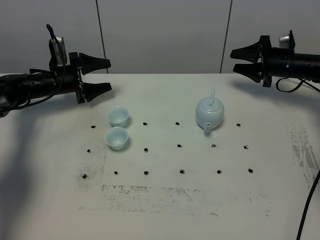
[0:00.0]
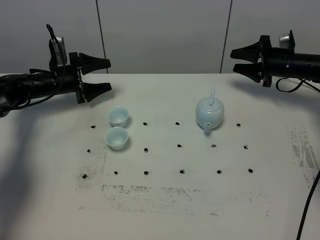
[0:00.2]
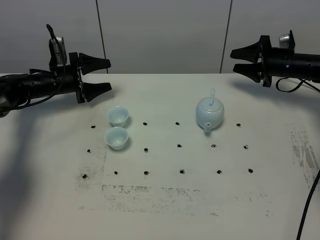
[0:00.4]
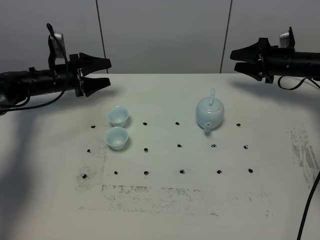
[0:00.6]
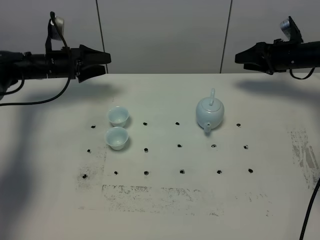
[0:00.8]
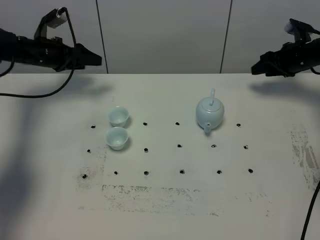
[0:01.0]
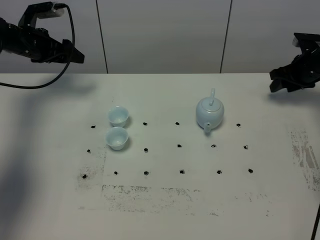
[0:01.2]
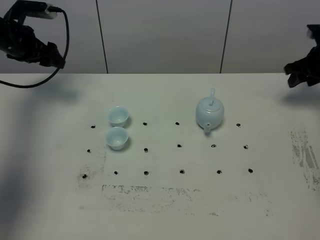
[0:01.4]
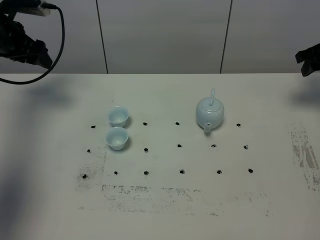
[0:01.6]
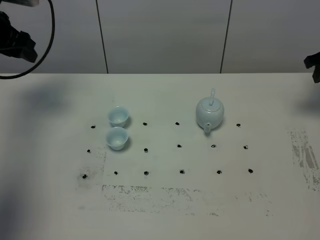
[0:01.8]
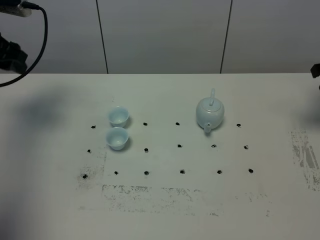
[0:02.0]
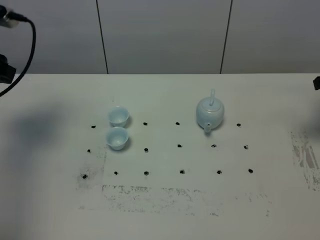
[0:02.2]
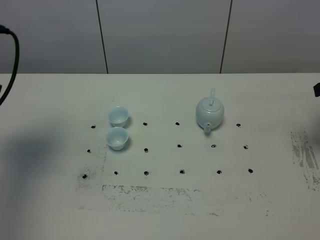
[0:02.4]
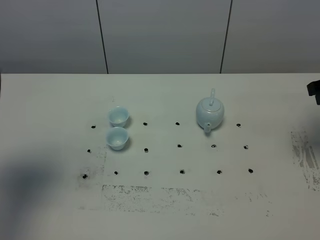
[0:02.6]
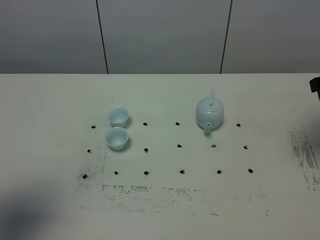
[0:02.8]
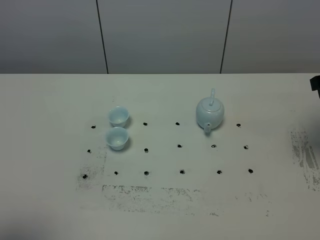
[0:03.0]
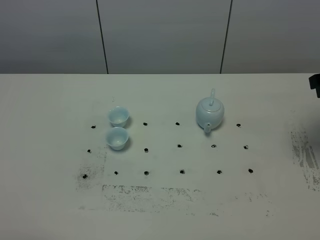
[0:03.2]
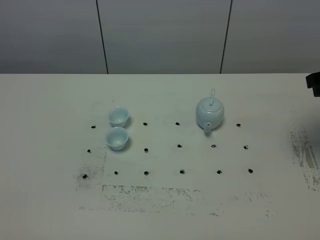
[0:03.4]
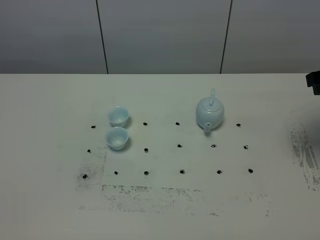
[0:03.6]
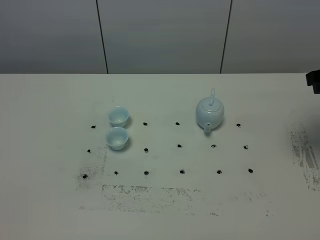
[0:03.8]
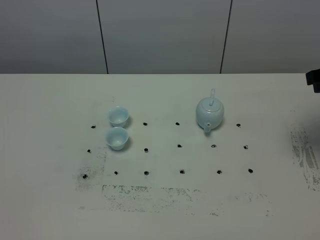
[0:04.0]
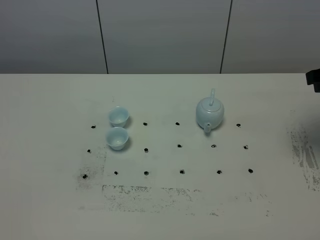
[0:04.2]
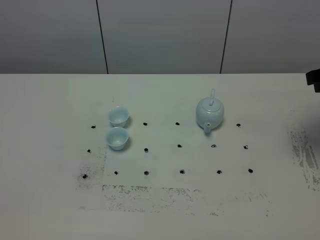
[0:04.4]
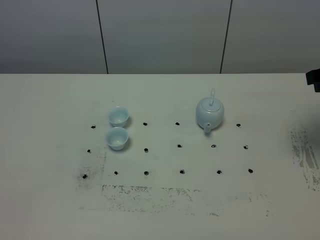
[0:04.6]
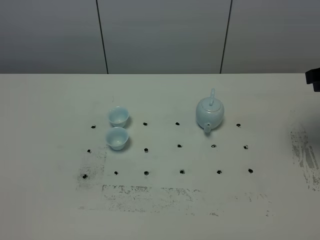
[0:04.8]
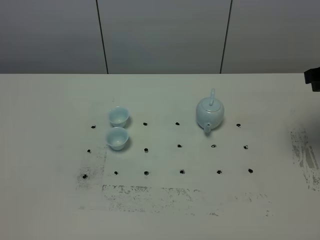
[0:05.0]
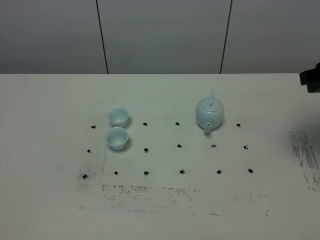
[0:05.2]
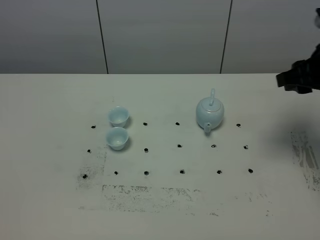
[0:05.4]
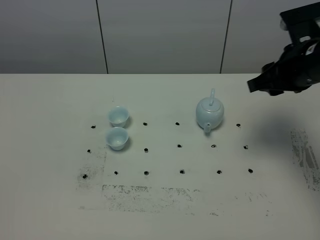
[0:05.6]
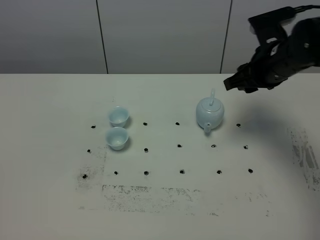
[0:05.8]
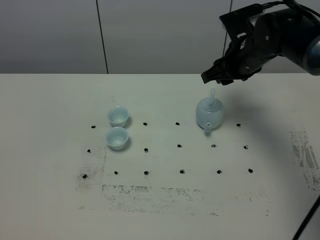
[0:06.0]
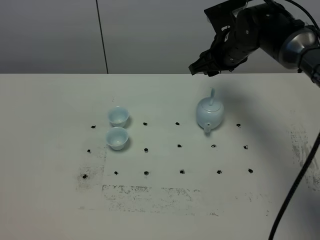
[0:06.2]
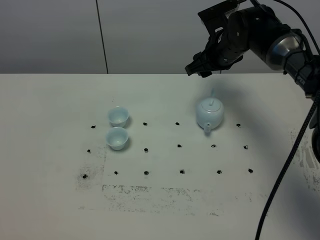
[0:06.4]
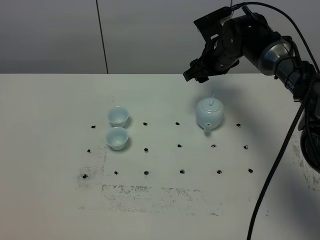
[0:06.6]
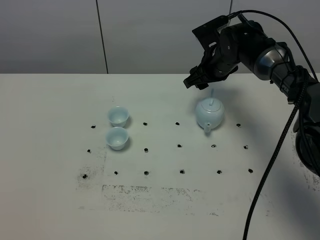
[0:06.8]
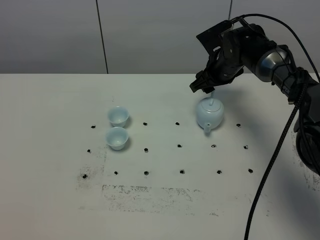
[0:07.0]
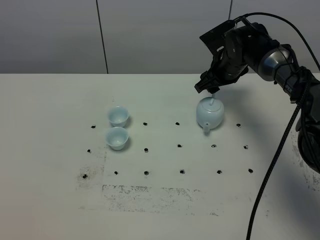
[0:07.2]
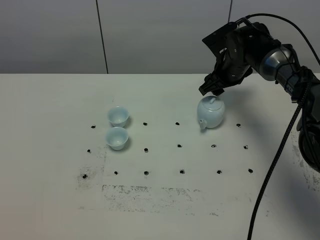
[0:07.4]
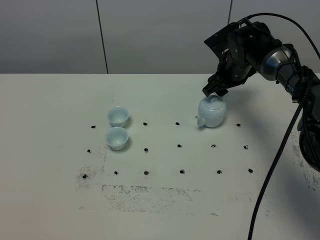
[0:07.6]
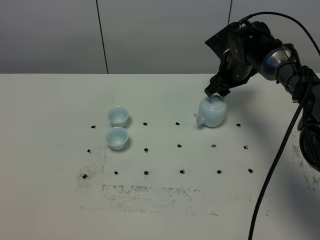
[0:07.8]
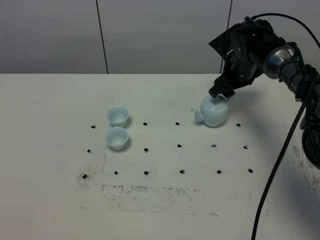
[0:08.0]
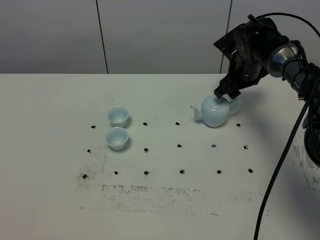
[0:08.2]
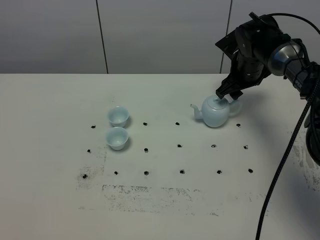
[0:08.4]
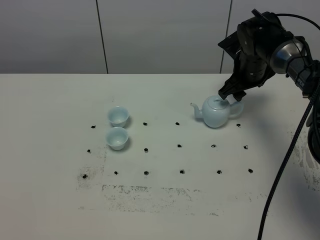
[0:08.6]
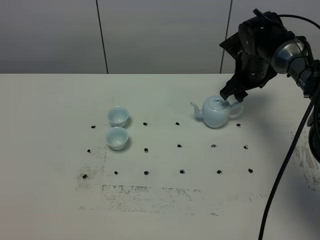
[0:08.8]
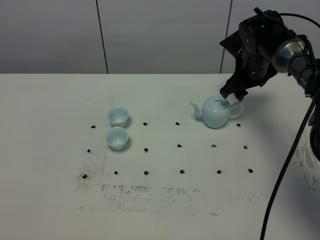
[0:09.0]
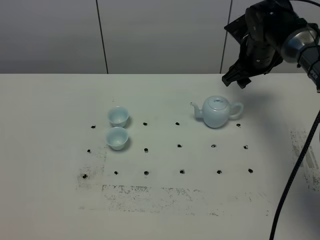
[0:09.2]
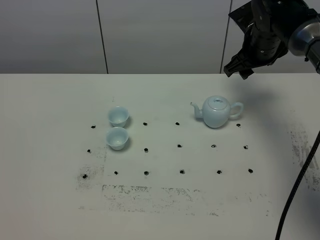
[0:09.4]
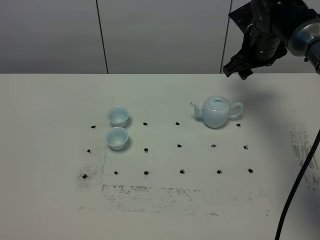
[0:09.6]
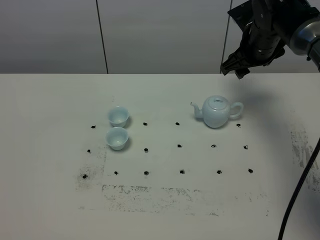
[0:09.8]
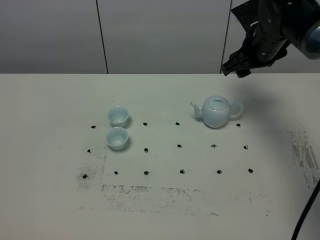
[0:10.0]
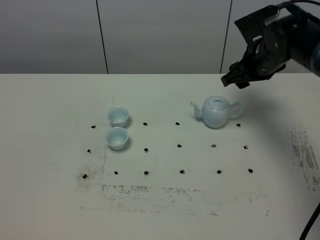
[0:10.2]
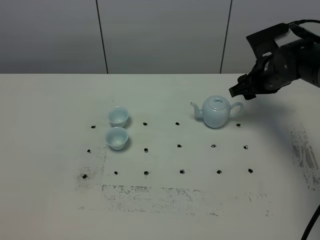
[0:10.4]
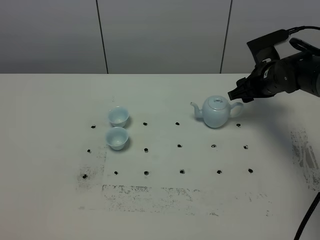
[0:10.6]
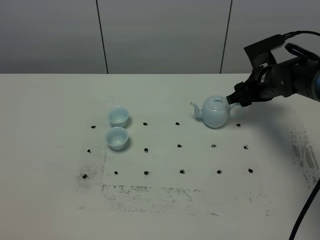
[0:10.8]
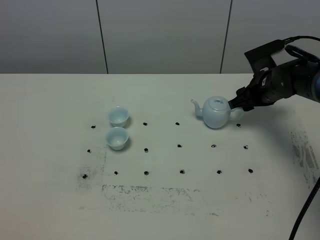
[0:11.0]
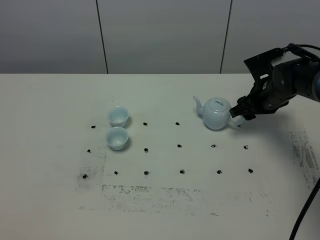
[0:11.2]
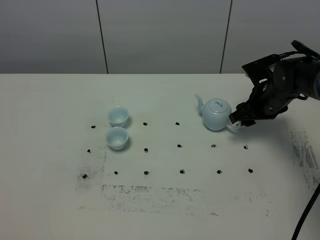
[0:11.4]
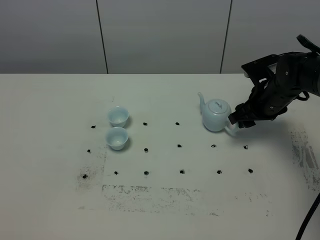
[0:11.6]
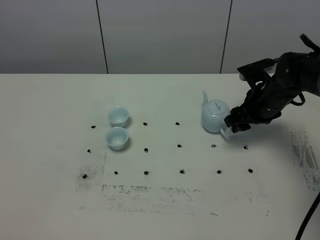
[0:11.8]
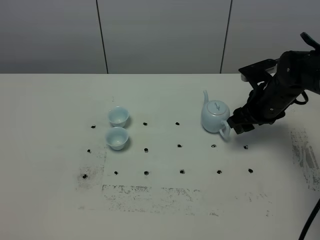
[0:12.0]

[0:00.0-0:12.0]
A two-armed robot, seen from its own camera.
Task of the whole recording: grasp the blue porcelain teapot and pour the tea into the two blue porcelain teacups one by one, put the blue porcelain teapot back in its original place.
0:00.0 to 0:01.6: The left gripper is displaced upward by roughly 20 cm, and closes. Meanwhile the right gripper travels upward, to the right and backward by approximately 15 cm.
0:01.6 to 0:03.0: The left gripper heads backward, covering some 40 cm, and closes its fingers. The right gripper heads backward and upward, covering about 20 cm.
0:03.0 to 0:04.4: The left gripper goes roughly 10 cm backward and downward.
0:04.4 to 0:06.0: The right gripper heads to the left and forward, covering about 20 cm.
0:06.0 to 0:07.6: The right gripper heads downward and forward, covering roughly 10 cm.
0:07.6 to 0:09.0: There are only small adjustments of the grippers.
0:09.0 to 0:10.4: The right gripper moves some 5 cm.

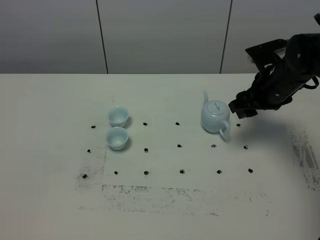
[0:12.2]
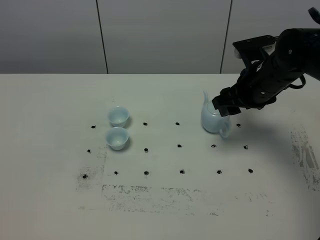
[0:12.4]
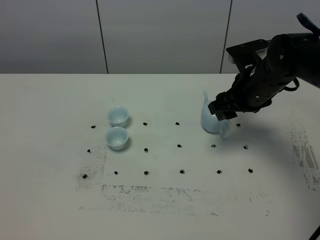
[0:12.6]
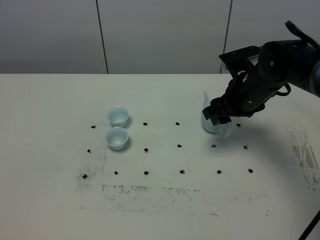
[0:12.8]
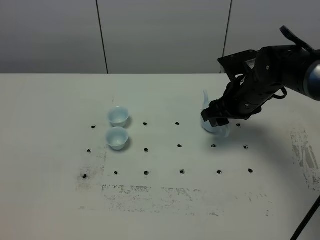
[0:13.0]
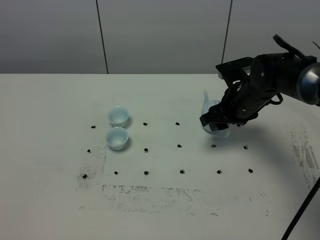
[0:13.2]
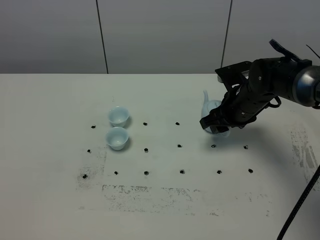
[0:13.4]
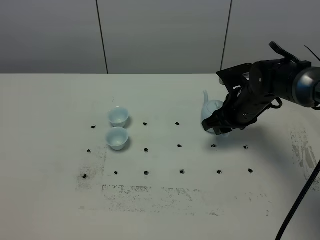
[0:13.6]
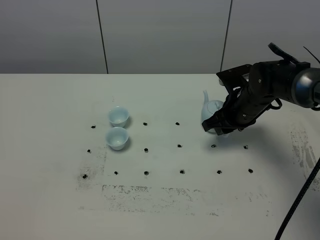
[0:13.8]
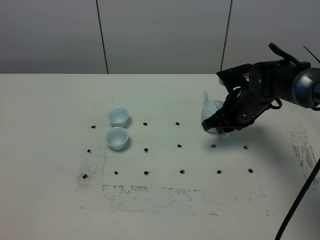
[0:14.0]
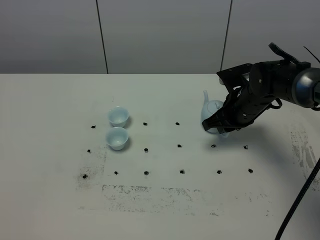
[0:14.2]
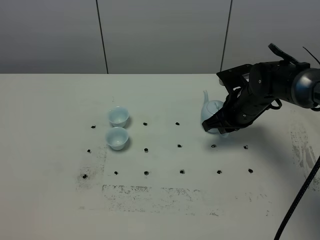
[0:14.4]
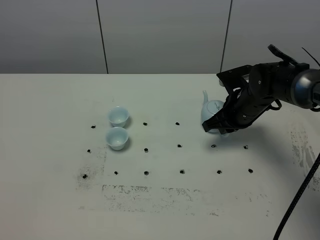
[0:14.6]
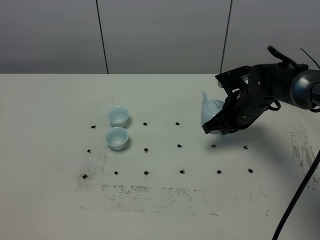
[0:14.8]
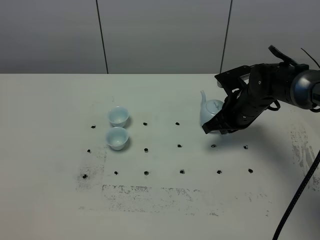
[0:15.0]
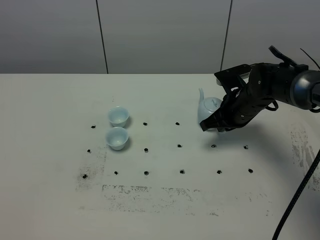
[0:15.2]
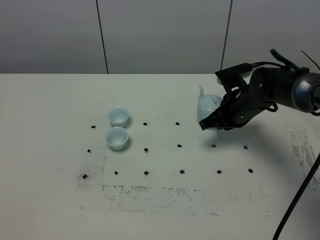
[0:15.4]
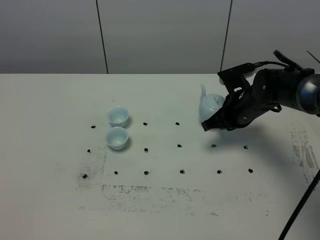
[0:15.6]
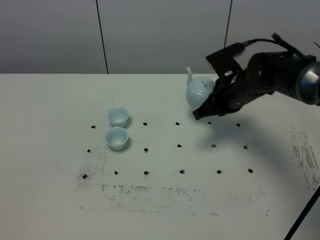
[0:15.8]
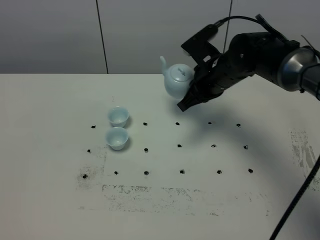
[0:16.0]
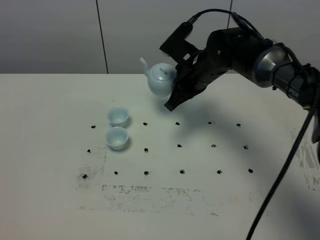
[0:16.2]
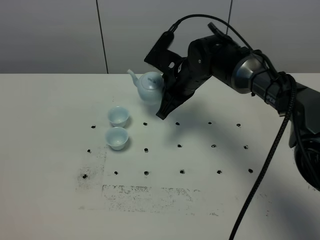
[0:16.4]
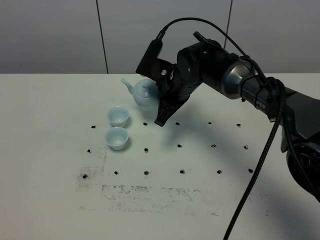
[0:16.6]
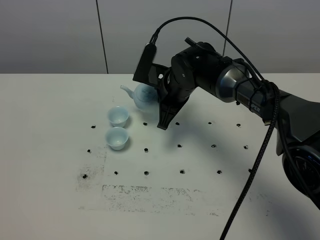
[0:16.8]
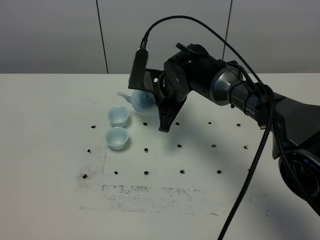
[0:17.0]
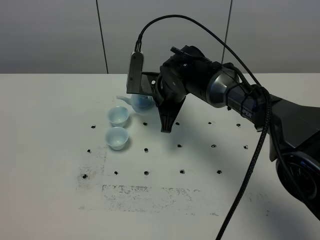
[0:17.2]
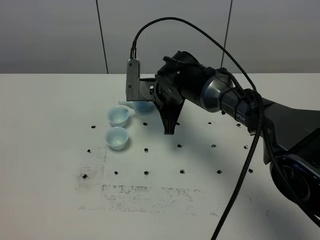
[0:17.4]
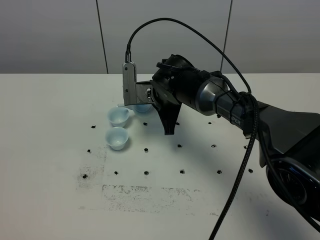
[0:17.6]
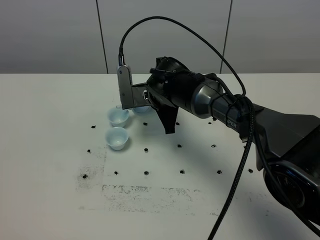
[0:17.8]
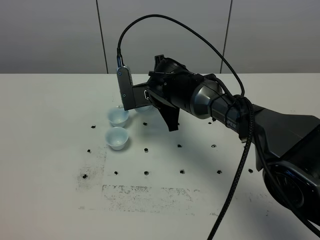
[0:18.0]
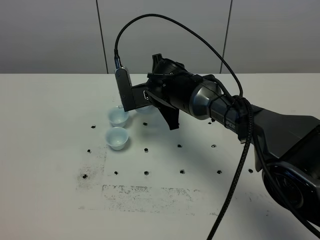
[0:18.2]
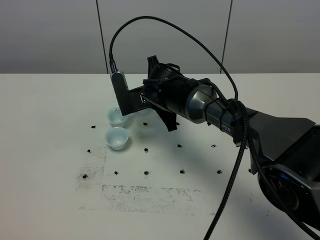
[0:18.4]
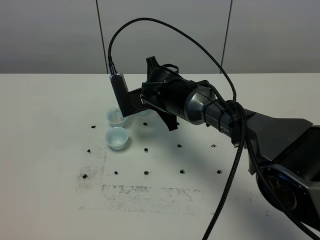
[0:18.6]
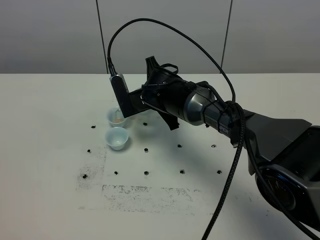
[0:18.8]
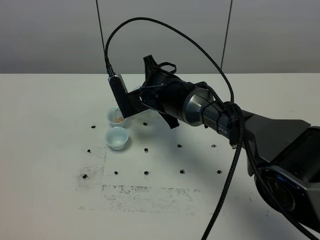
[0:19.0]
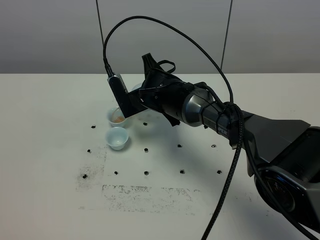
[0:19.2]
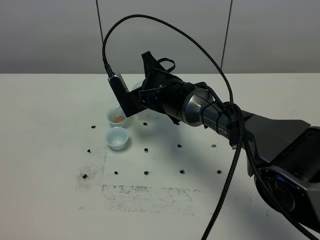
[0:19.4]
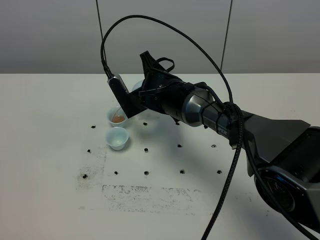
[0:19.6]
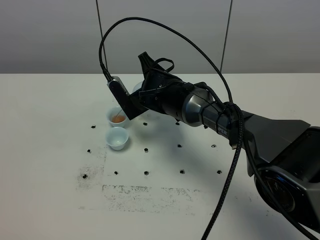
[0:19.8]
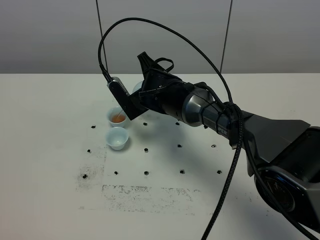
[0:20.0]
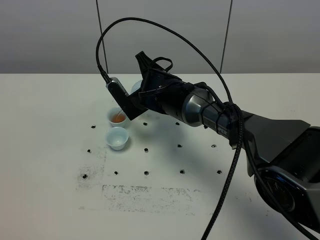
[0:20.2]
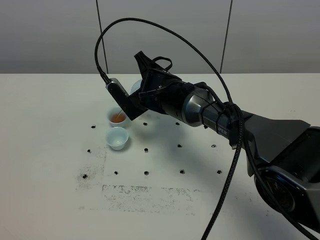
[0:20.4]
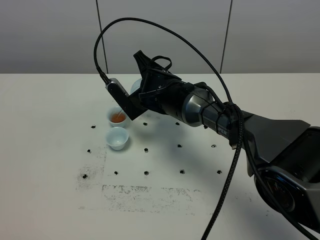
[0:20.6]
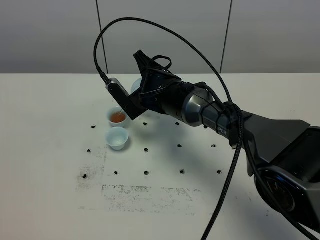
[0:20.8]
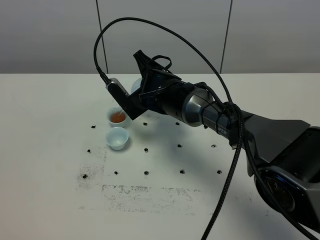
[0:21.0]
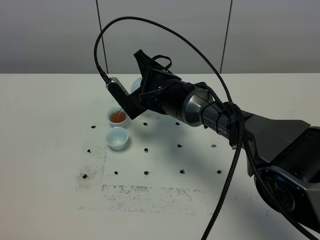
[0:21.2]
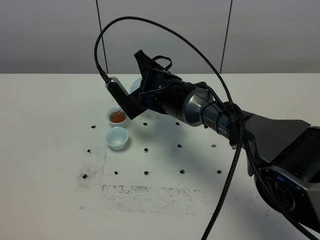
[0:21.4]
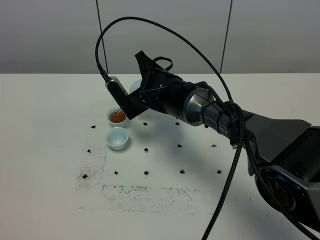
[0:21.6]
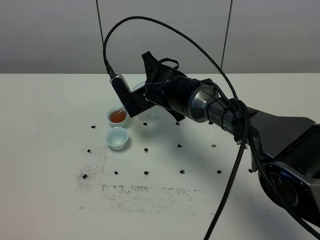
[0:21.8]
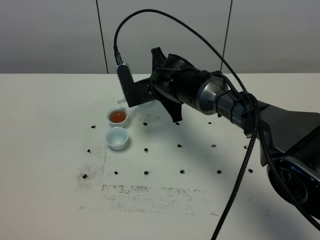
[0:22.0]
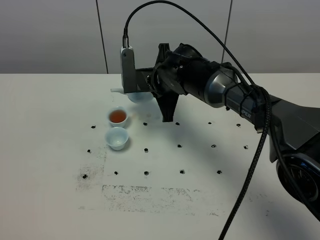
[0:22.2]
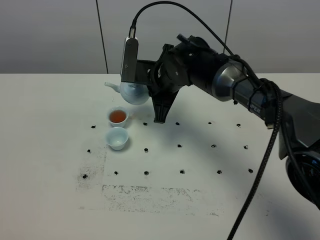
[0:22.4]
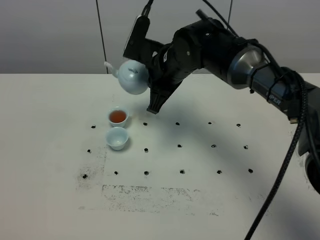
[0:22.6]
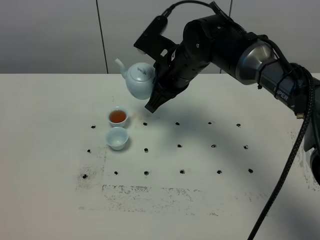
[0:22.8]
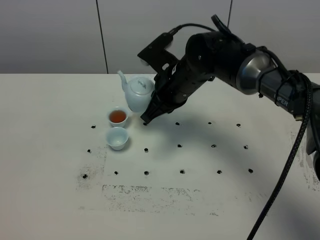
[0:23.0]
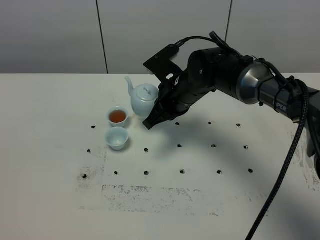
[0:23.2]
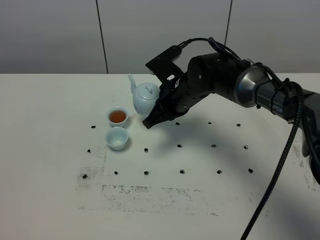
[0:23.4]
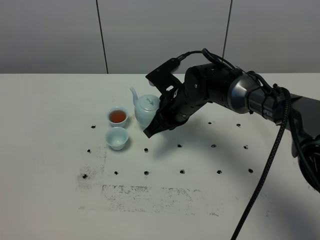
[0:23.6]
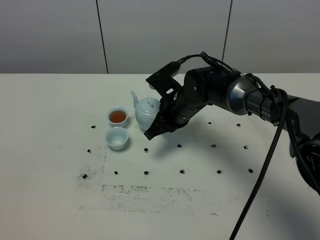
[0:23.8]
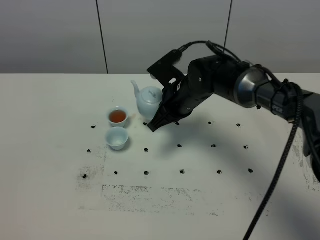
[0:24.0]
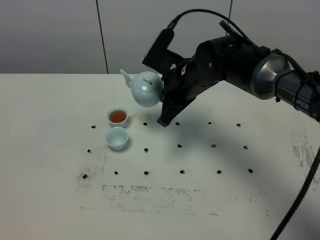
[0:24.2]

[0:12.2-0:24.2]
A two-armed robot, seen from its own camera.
Task of the whole recording: grasp the blue porcelain teapot and pour the tea into the two blue porcelain teacups one by one, put the blue porcelain teapot back in its original place.
Step, 0:12.2 to 0:15.6: Pick up the teapot with the right gripper.
0:12.2 to 0:13.8: The right gripper heads downward, covering about 5 cm, and closes up.
0:13.8 to 0:15.2: The right gripper closes its fingers.
0:15.2 to 0:16.6: The right gripper goes about 15 cm to the left.
0:18.2 to 0:19.8: The grippers stay close to where they were, moving slightly.
0:19.8 to 0:21.2: The grippers make only small movements.
0:21.2 to 0:22.6: The right gripper is displaced upward by some 5 cm.
0:22.6 to 0:24.2: The right gripper travels downward and back again, about 10 cm each way.
